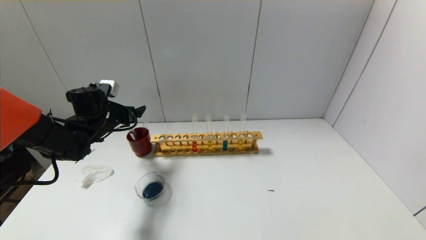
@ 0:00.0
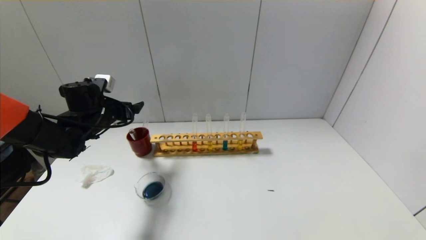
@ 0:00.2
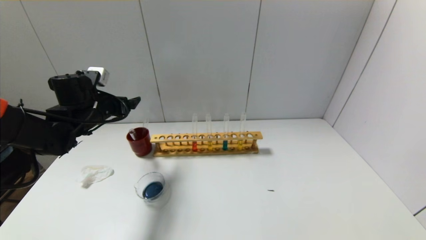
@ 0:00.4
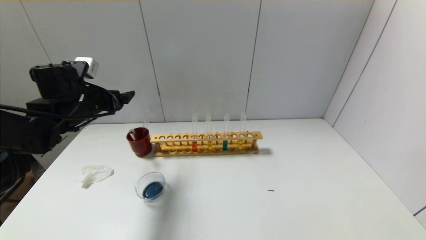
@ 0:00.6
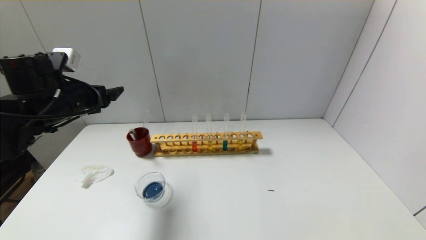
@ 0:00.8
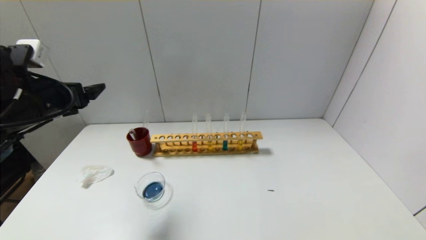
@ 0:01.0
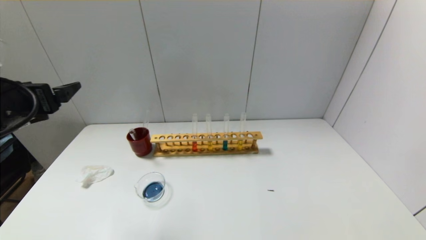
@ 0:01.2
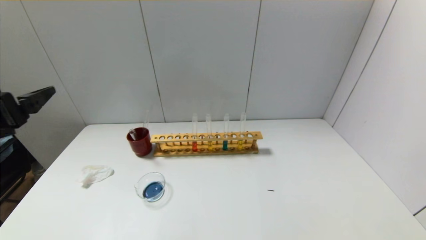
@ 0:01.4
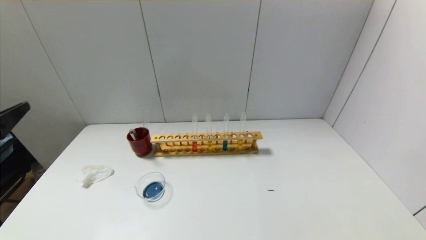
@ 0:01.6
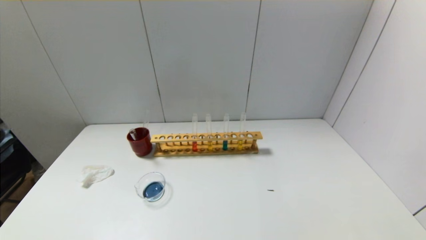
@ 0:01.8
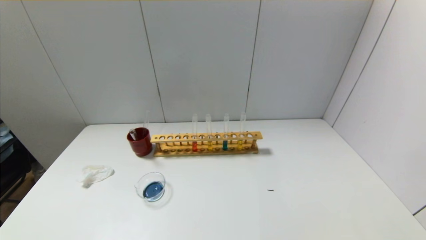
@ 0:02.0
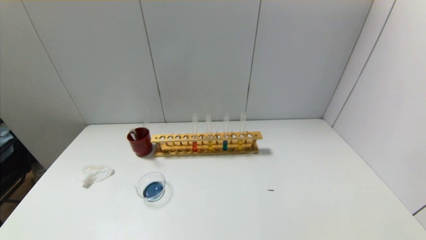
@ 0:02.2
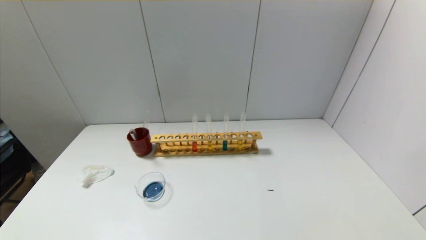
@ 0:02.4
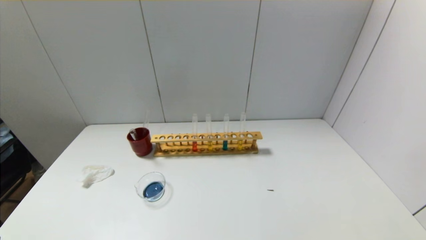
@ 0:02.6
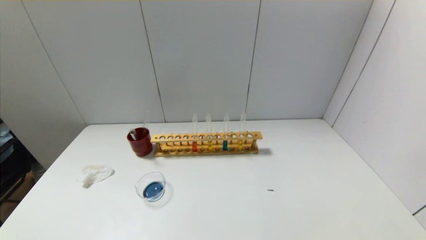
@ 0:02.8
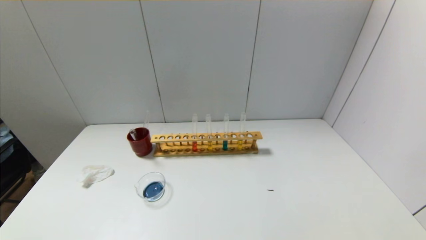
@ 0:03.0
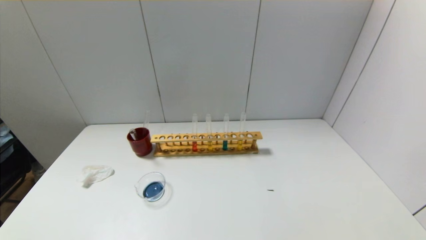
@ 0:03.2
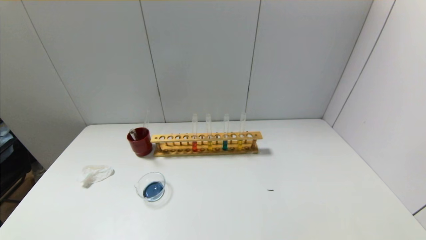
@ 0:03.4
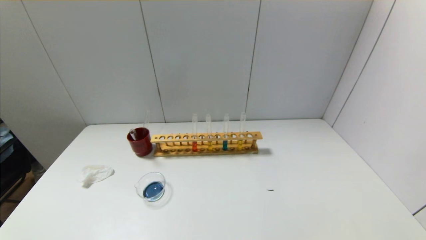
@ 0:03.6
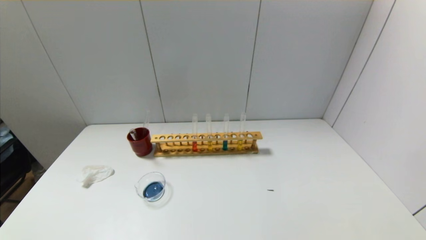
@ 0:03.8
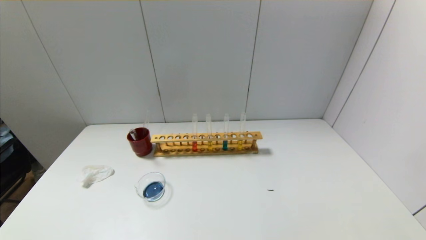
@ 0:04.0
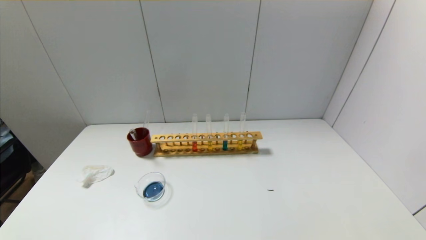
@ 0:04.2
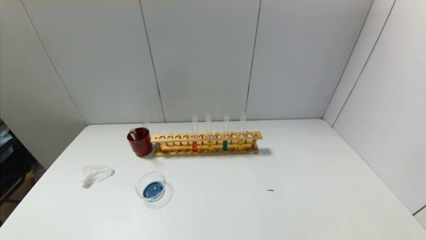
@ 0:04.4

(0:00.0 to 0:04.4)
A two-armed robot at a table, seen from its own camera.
0:00.0 - 0:01.4: The left gripper moves backward and upward, some 25 cm.
0:01.4 - 0:03.0: The left gripper travels downward and backward by some 25 cm.

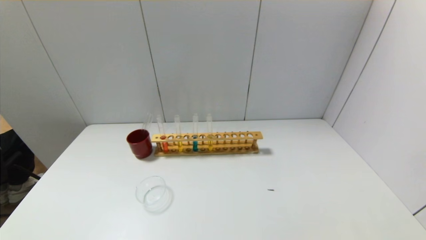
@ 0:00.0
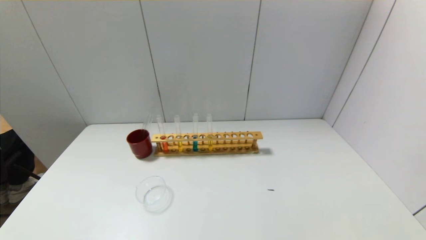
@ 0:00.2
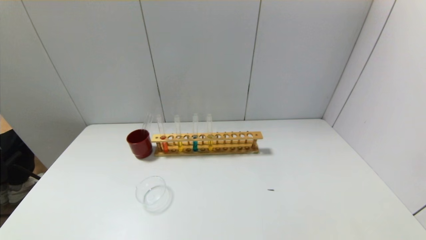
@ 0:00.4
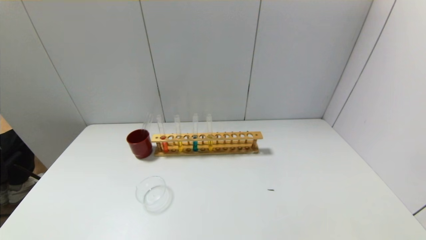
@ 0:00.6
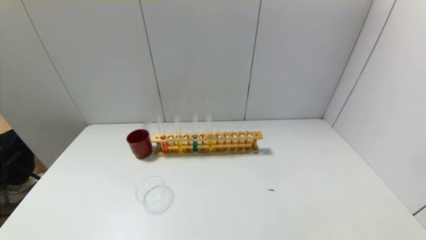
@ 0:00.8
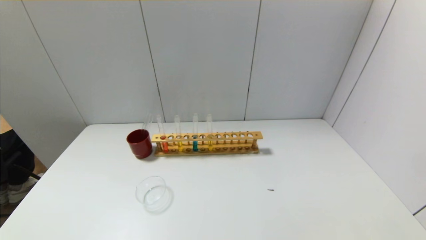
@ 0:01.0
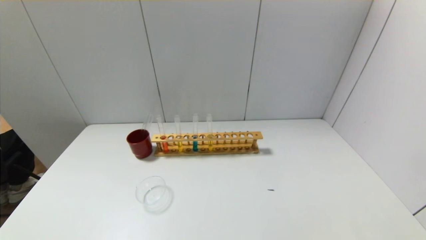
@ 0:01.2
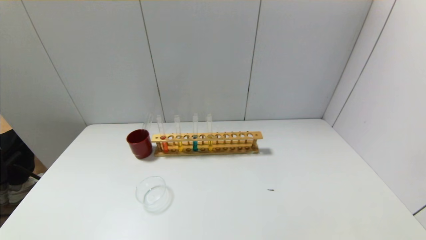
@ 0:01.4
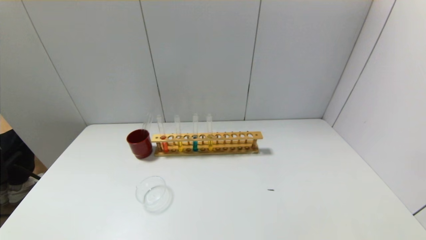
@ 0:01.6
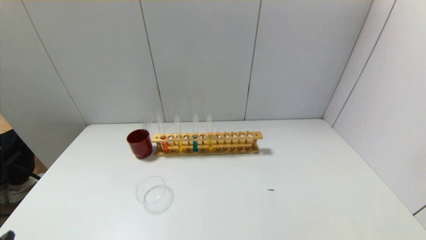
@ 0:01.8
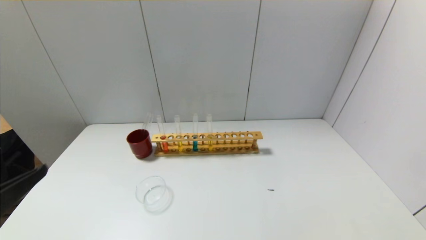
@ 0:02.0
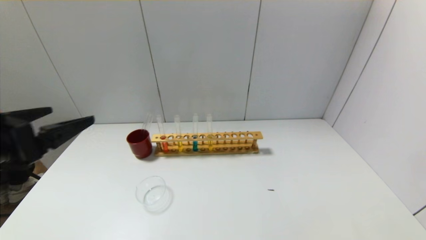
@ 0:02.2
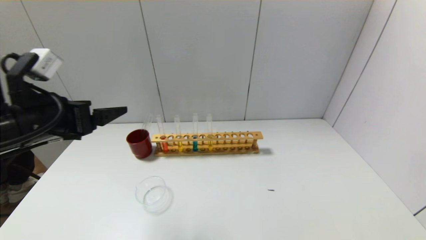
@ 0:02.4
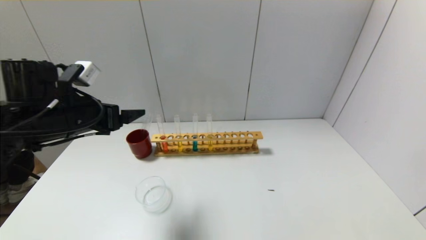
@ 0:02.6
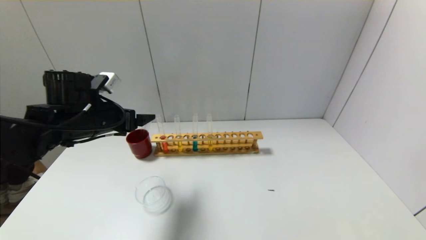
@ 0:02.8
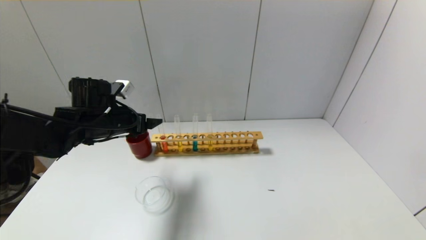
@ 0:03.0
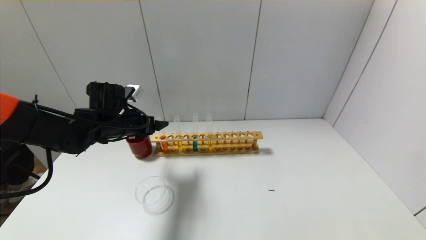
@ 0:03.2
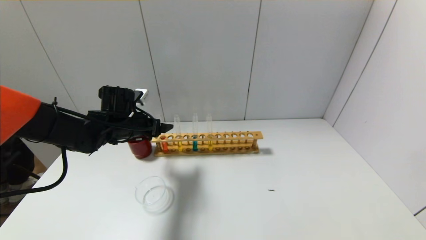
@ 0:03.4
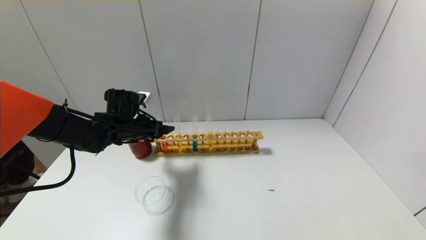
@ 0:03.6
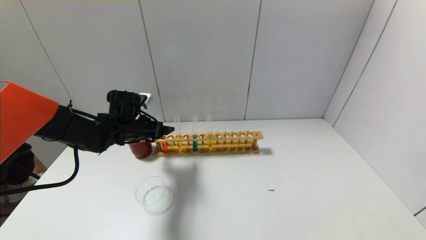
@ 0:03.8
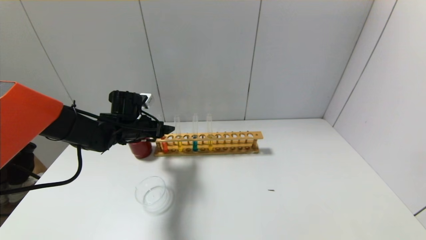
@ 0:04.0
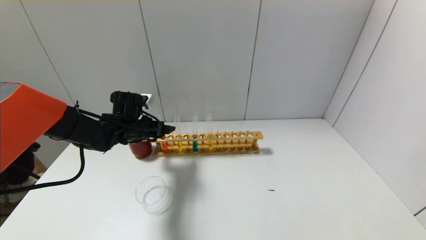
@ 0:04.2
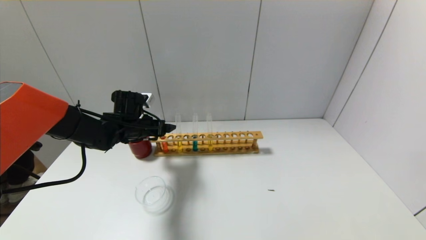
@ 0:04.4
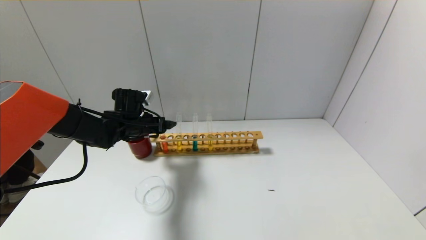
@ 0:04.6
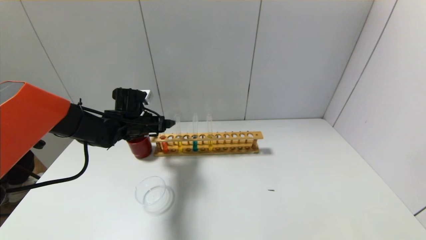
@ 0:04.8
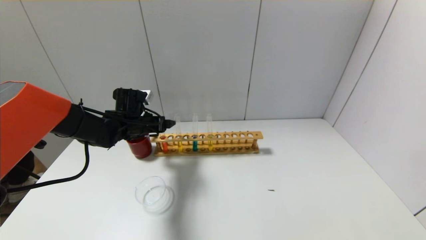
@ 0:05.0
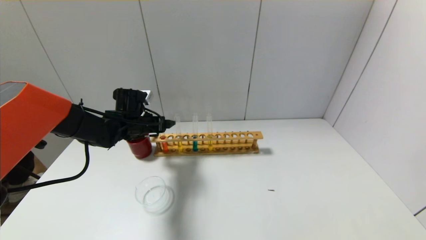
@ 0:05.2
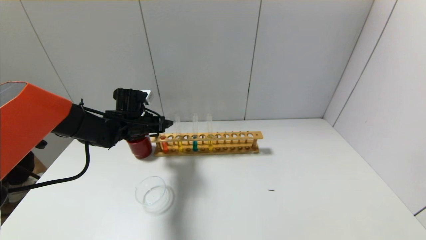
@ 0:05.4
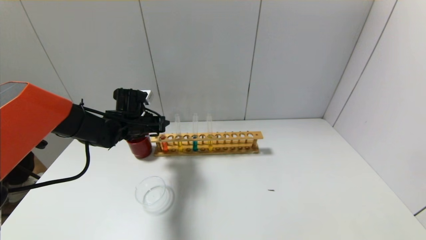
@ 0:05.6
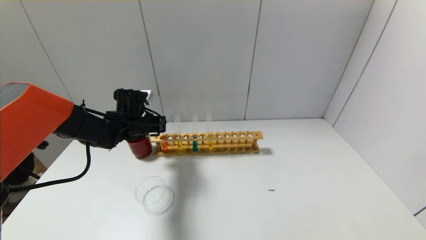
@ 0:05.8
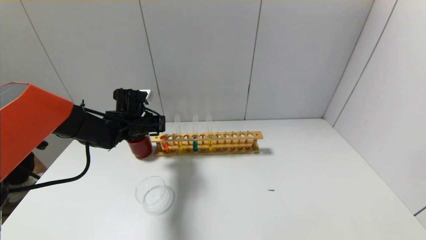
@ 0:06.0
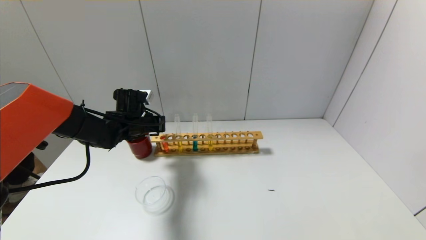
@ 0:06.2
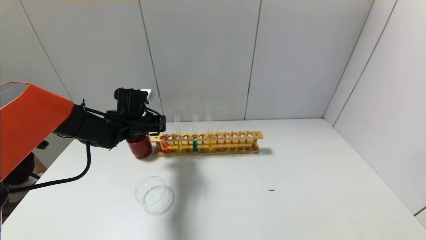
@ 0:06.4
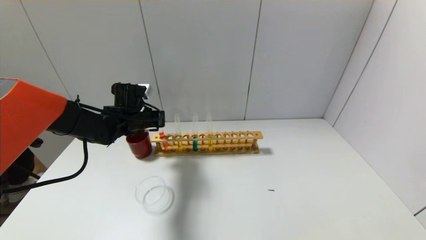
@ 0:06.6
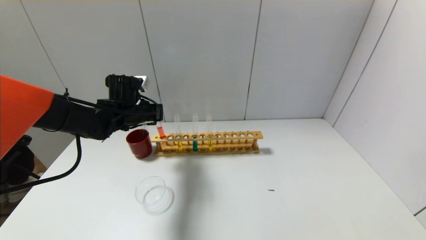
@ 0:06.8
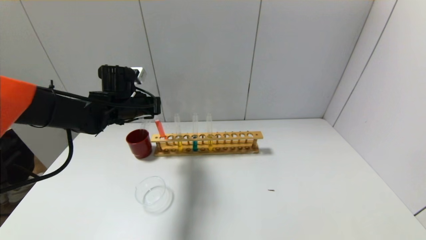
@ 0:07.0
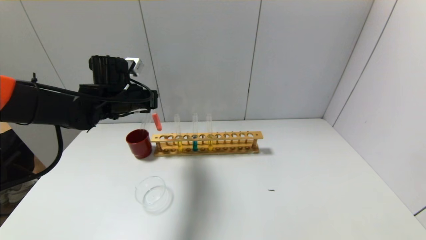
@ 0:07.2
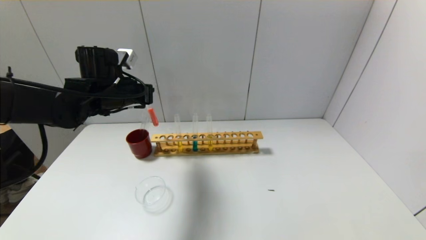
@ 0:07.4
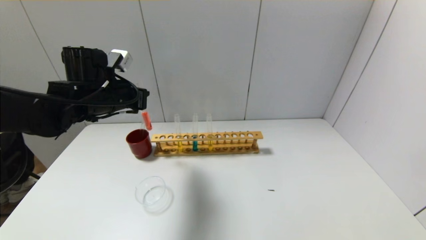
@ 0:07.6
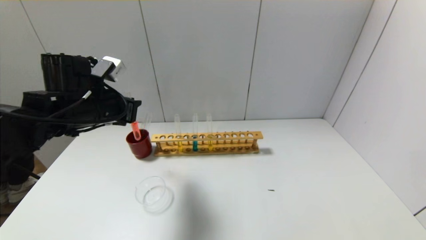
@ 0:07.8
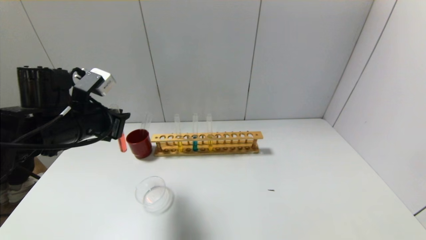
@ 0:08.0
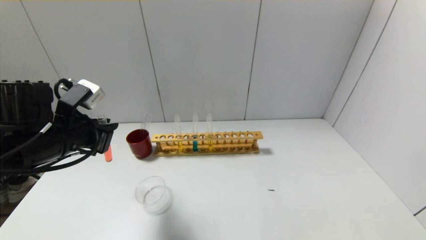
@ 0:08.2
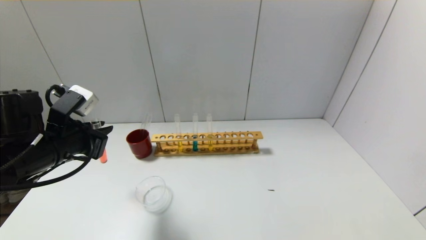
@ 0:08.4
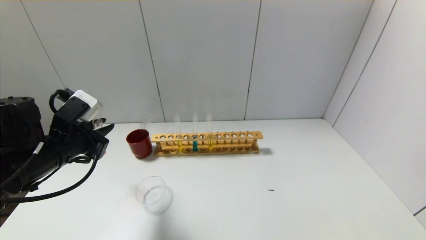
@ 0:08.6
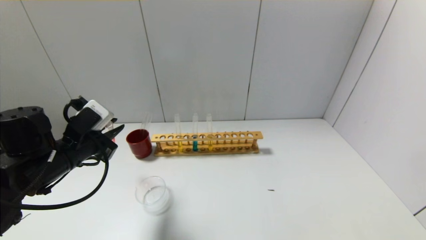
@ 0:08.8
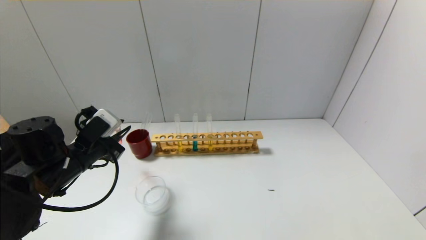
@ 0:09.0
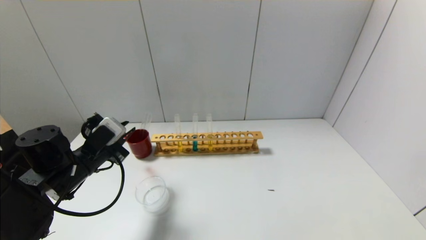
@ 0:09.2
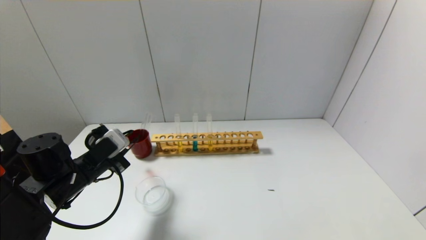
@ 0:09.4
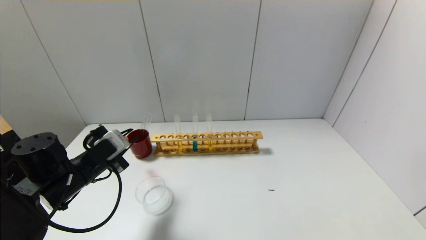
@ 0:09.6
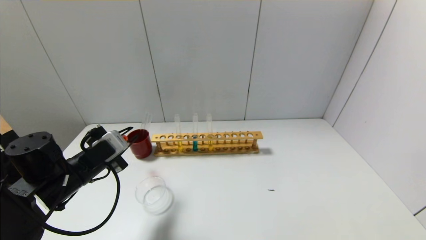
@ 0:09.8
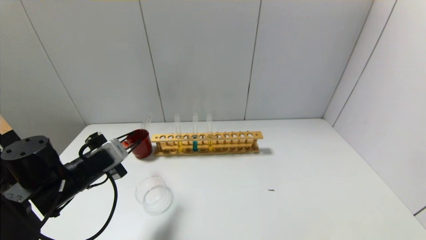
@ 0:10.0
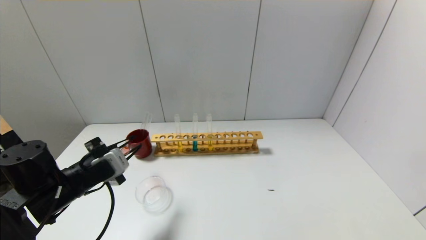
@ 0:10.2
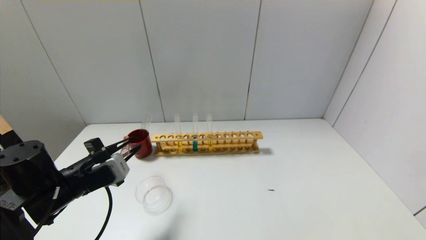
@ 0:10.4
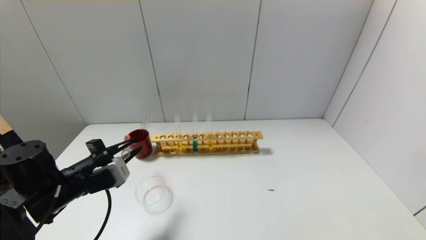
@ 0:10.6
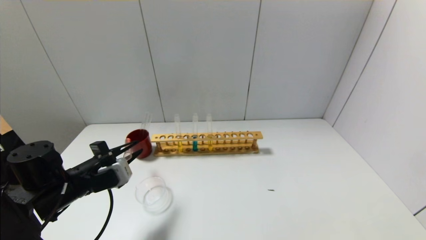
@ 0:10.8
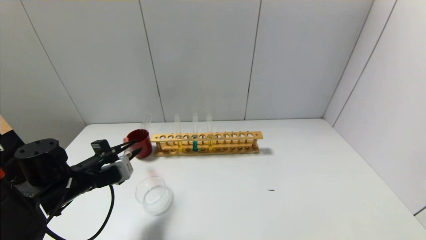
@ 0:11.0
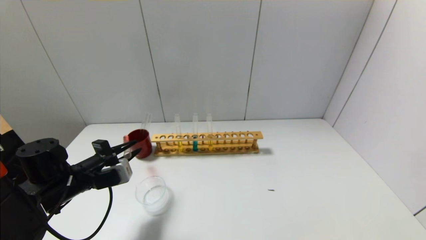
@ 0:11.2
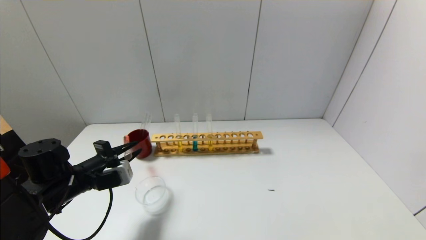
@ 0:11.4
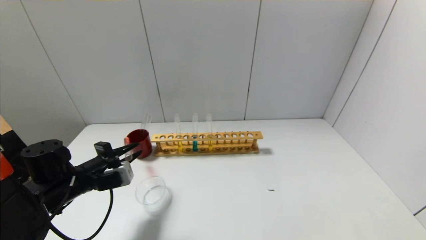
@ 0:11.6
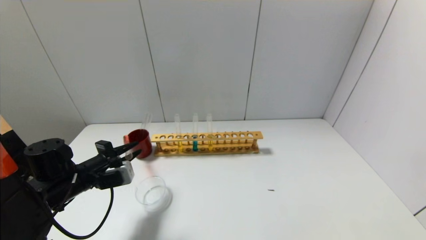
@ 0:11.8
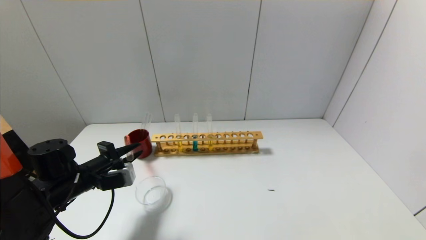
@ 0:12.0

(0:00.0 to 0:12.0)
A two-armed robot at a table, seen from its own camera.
Step, 0:00.0 - 0:05.8: Grasp the red reagent with the left gripper.
0:01.6 - 0:03.0: The left gripper heads forward, covering roughly 35 cm.
0:03.0 - 0:04.4: The left gripper travels forward and downward by roughly 10 cm.
0:04.4 - 0:06.0: The left gripper closes.
0:06.0 - 0:07.6: The left gripper travels upward and backward by some 15 cm.
0:07.6 - 0:09.0: The left gripper is displaced downward and backward by about 10 cm.
0:10.4 - 0:12.0: The left gripper changes place by approximately 5 cm.
